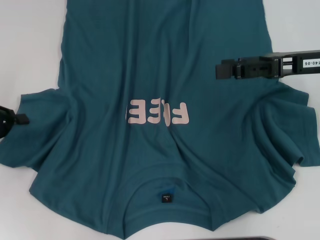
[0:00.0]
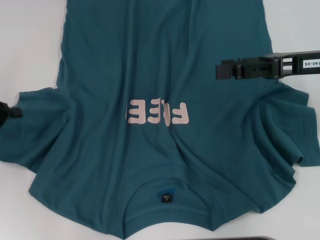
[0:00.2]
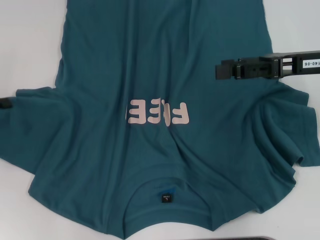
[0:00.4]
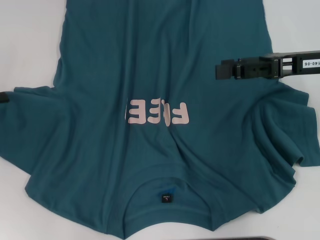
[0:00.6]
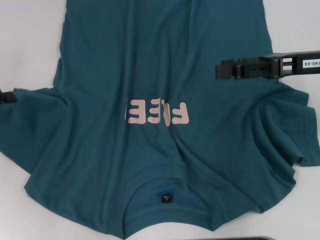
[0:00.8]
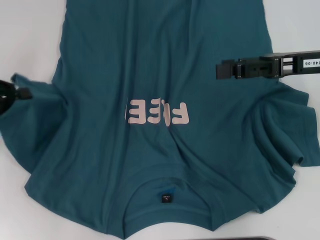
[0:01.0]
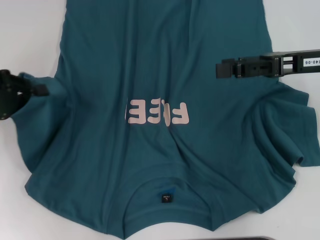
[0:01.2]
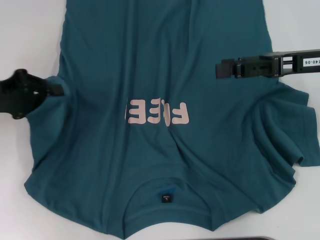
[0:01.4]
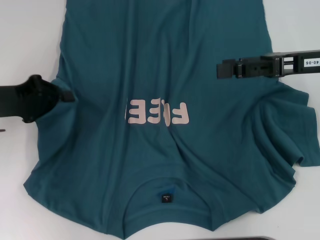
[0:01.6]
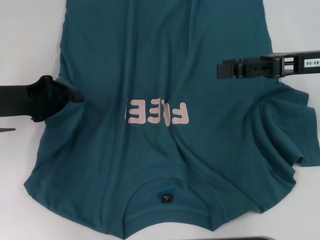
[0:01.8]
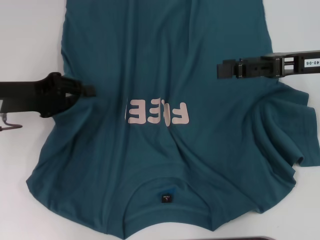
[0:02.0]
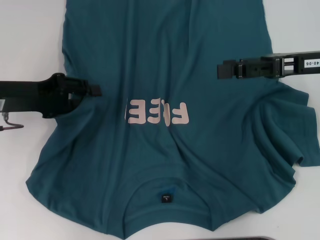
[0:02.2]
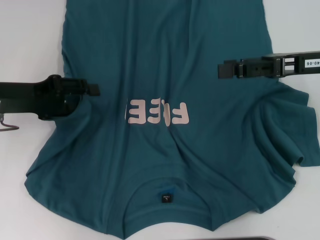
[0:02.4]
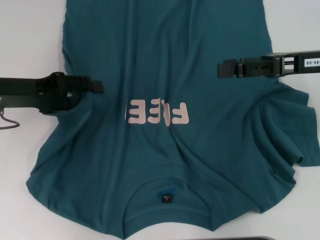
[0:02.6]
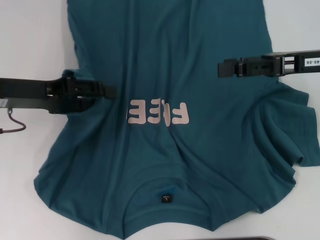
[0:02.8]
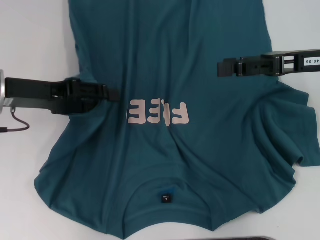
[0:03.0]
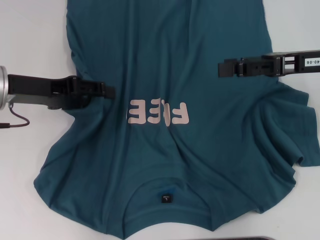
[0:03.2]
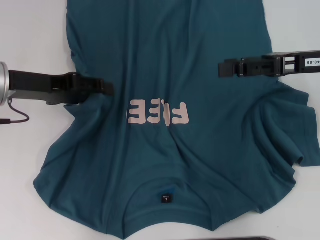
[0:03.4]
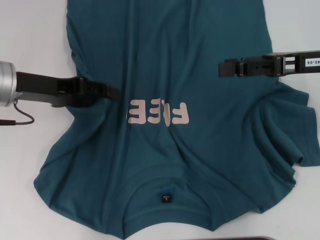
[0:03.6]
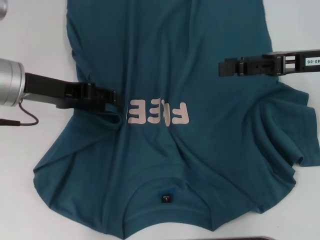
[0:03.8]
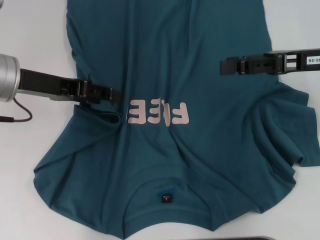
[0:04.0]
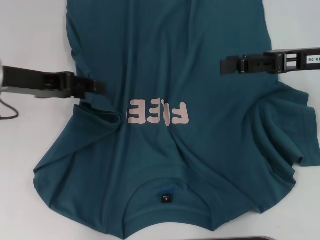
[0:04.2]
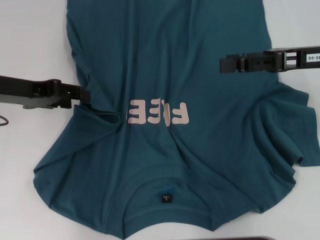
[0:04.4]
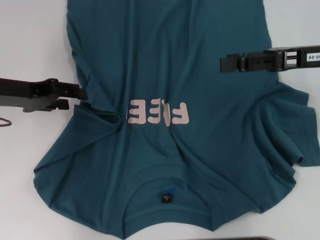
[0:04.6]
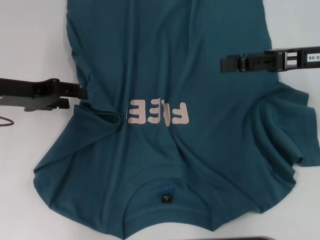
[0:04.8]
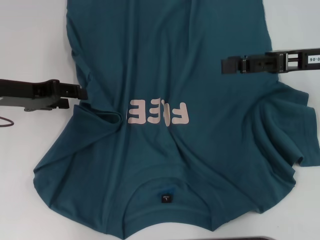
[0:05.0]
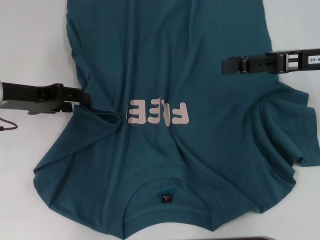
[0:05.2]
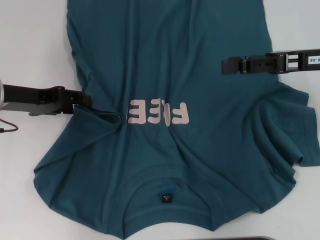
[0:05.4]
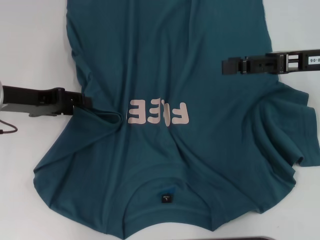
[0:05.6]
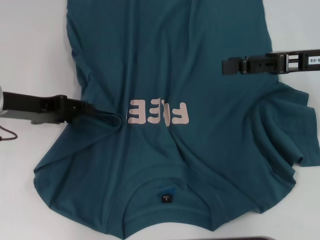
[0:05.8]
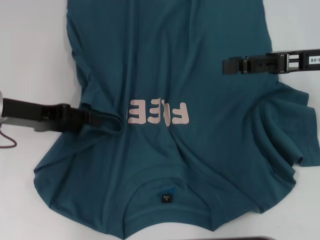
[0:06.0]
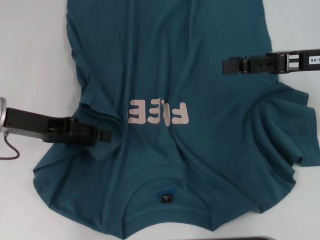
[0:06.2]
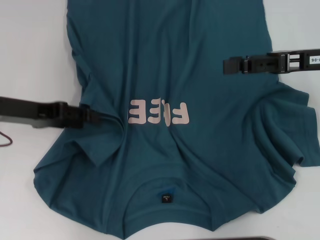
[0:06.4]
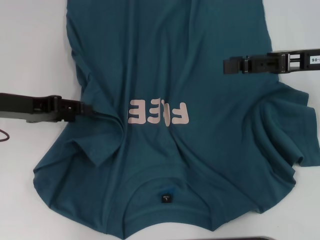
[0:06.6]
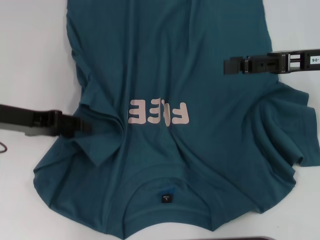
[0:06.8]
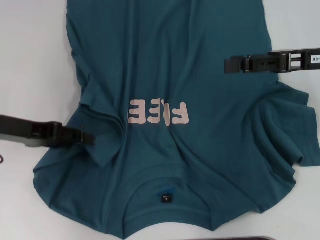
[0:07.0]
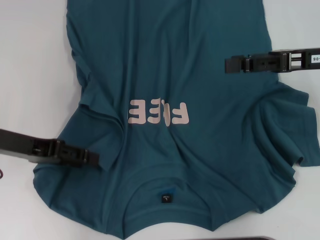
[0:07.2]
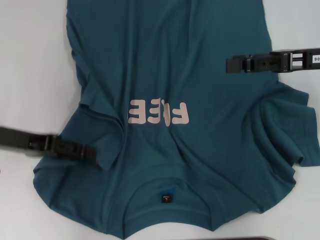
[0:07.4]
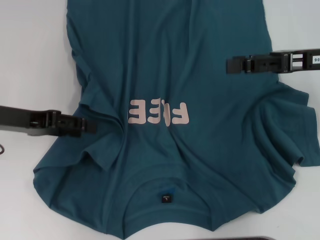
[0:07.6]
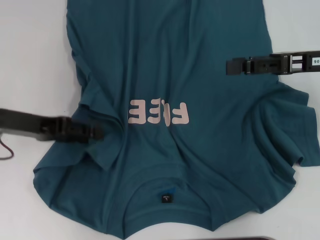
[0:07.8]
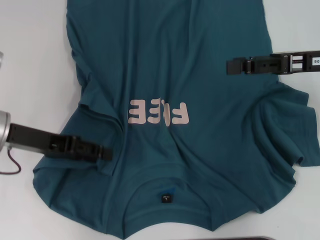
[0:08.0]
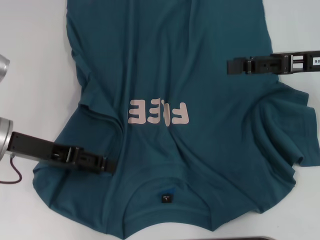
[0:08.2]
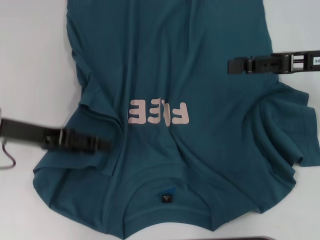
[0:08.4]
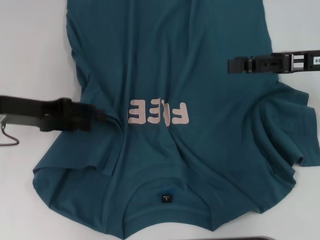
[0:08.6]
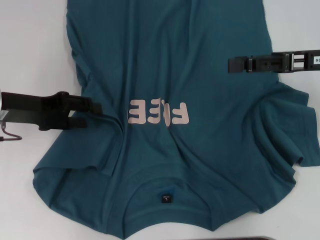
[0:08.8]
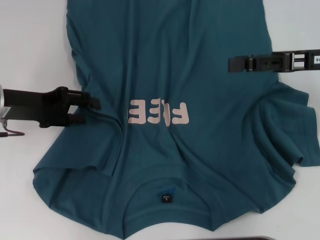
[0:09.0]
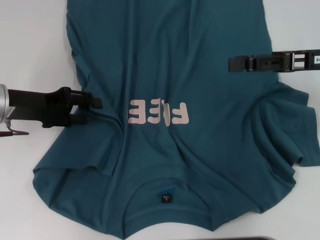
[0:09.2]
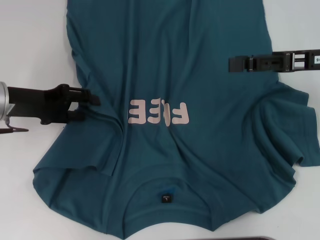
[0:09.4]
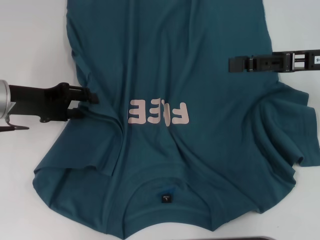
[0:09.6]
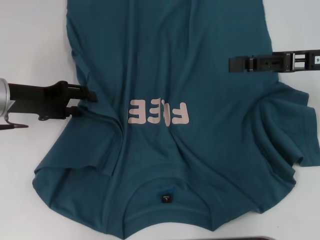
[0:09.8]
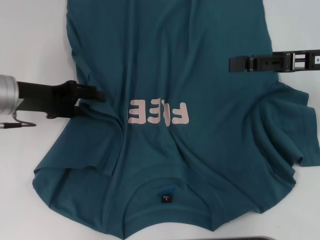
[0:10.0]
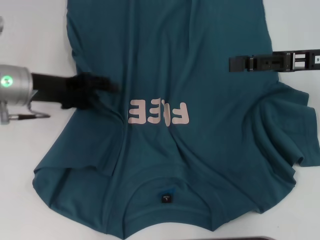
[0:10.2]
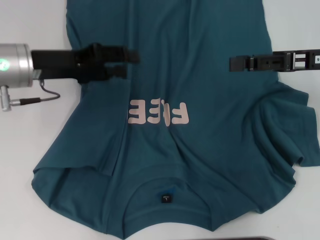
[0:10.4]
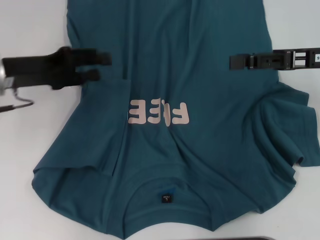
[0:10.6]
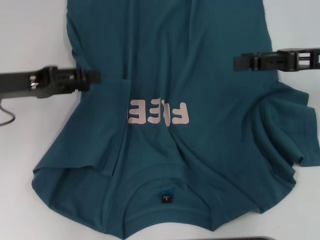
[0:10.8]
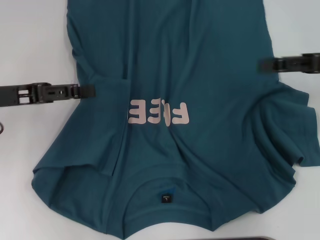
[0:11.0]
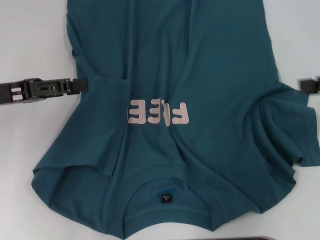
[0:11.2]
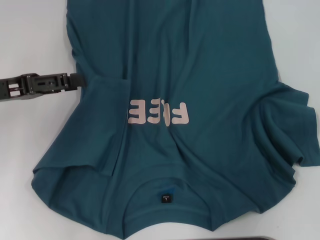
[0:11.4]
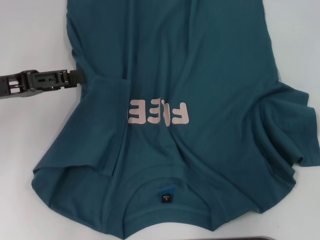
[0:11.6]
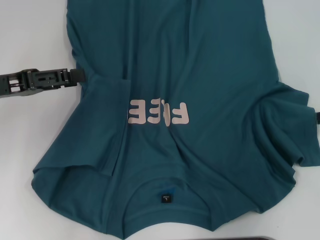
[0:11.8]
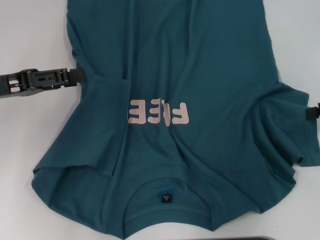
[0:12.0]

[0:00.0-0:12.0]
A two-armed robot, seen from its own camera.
Step, 0:00.0 to 0:10.6: Fold the bottom left sleeve with your left hand.
0:00.0 to 0:01.6: The left gripper shifts some 5 cm to the right.
0:01.6 to 0:03.0: The left gripper goes about 5 cm to the right, and opens.
0:03.0 to 0:07.6: The grippers make only small movements.
0:09.0 to 0:10.4: The left gripper shifts by approximately 5 cm.
0:10.4 to 0:12.0: The right gripper goes approximately 10 cm to the right, while the left gripper shifts roughly 10 cm to the left.

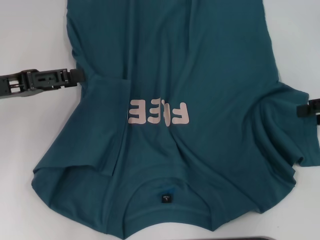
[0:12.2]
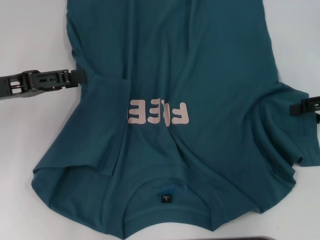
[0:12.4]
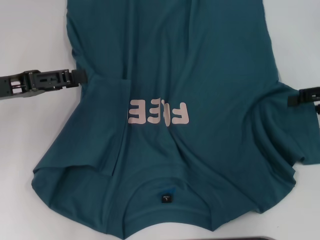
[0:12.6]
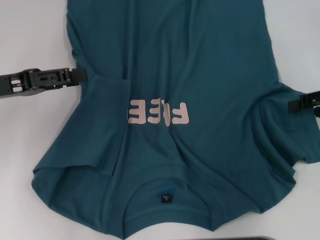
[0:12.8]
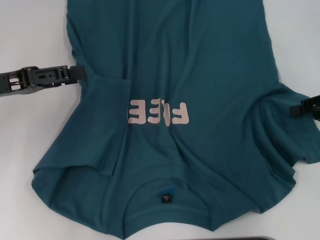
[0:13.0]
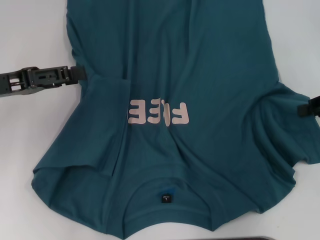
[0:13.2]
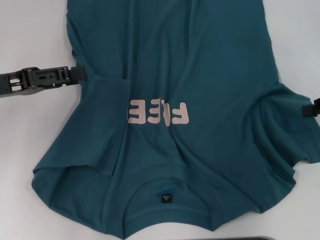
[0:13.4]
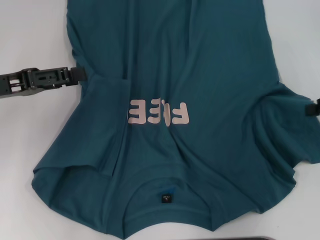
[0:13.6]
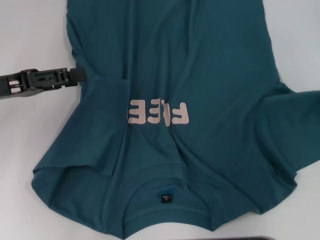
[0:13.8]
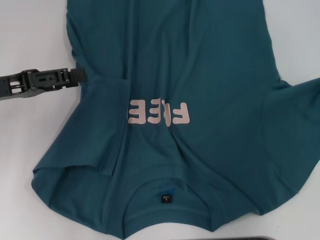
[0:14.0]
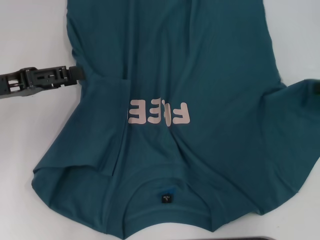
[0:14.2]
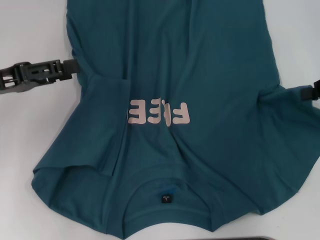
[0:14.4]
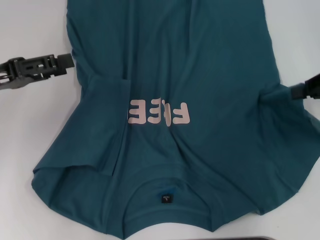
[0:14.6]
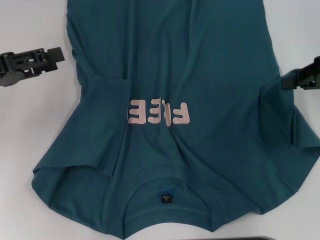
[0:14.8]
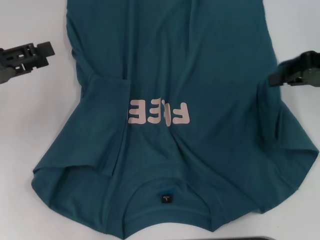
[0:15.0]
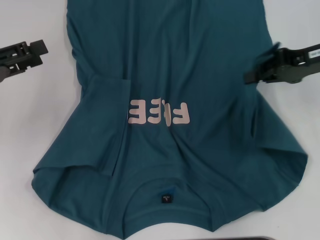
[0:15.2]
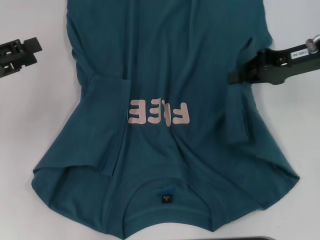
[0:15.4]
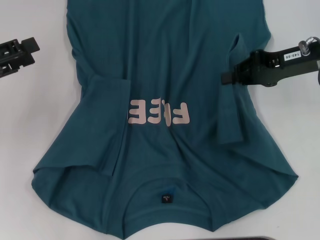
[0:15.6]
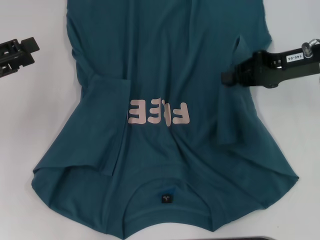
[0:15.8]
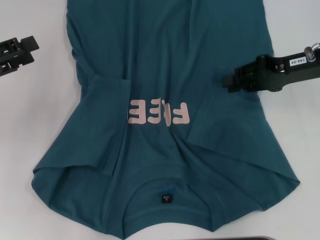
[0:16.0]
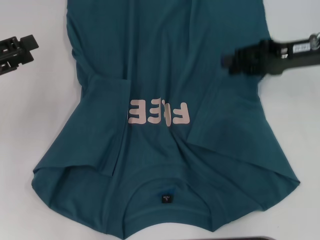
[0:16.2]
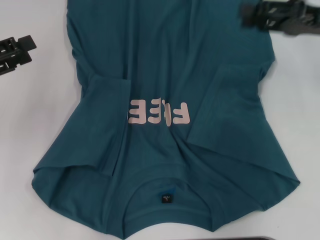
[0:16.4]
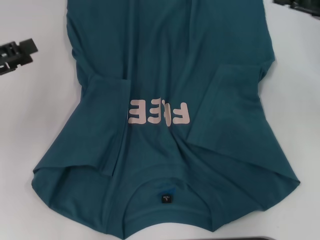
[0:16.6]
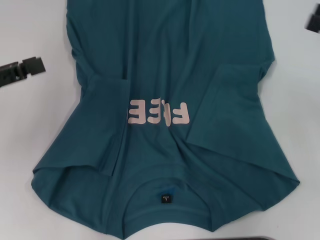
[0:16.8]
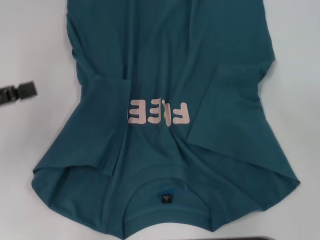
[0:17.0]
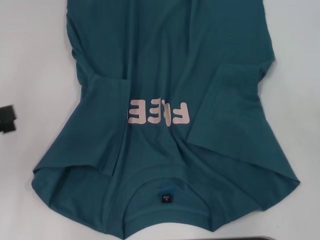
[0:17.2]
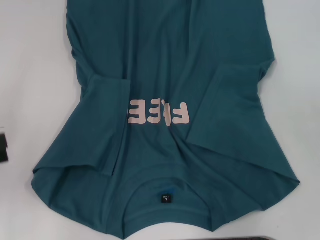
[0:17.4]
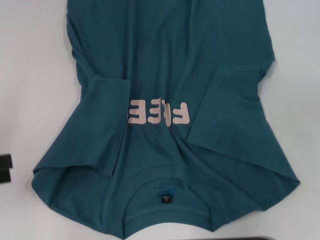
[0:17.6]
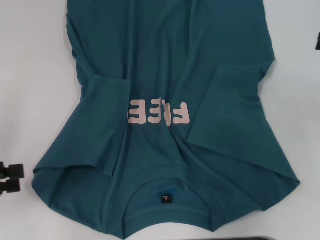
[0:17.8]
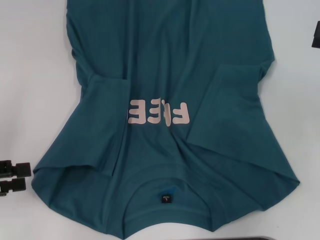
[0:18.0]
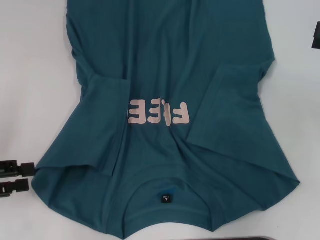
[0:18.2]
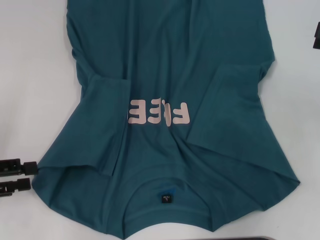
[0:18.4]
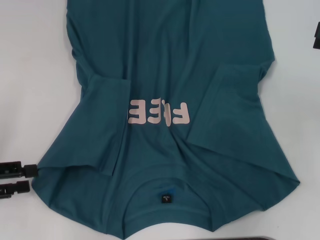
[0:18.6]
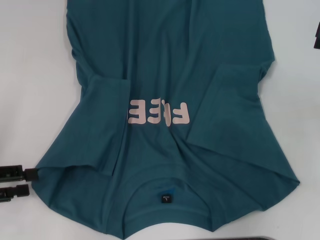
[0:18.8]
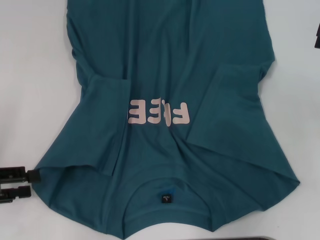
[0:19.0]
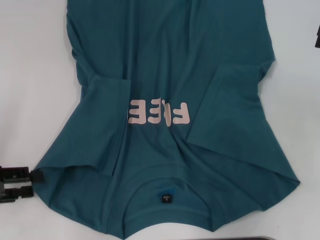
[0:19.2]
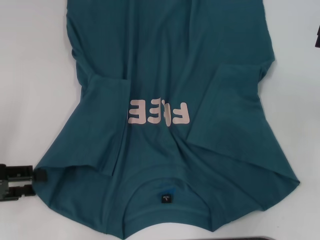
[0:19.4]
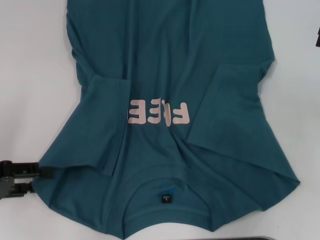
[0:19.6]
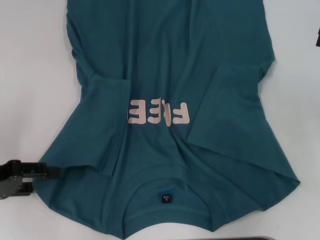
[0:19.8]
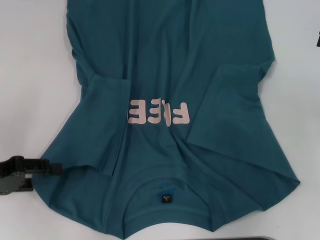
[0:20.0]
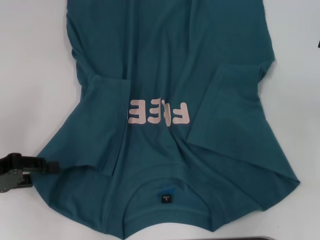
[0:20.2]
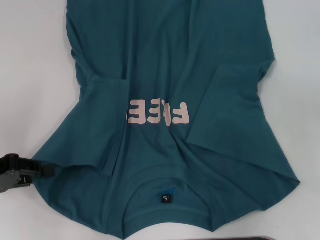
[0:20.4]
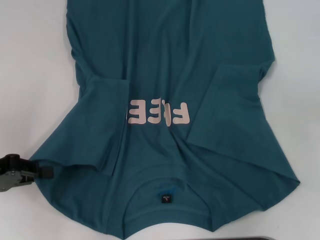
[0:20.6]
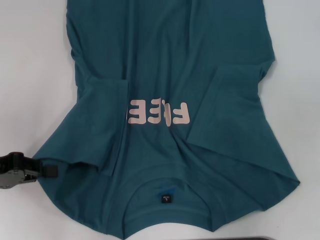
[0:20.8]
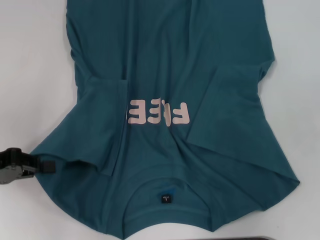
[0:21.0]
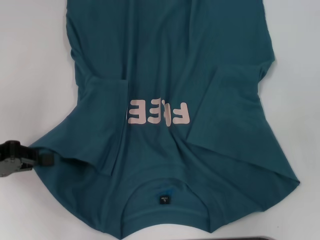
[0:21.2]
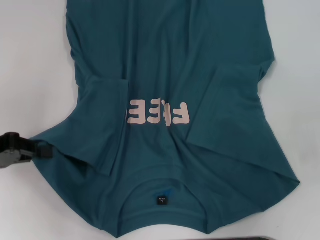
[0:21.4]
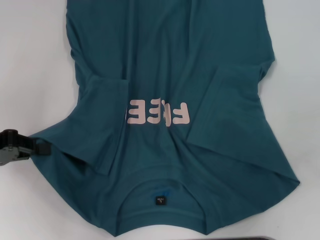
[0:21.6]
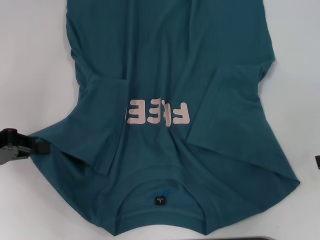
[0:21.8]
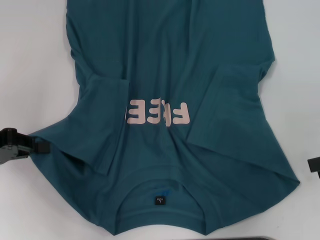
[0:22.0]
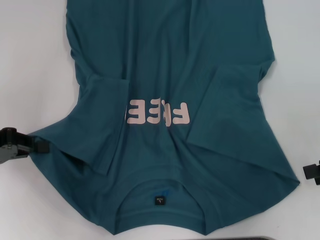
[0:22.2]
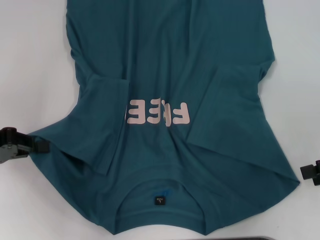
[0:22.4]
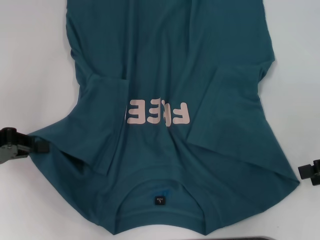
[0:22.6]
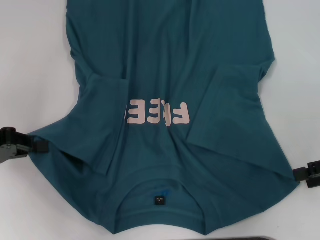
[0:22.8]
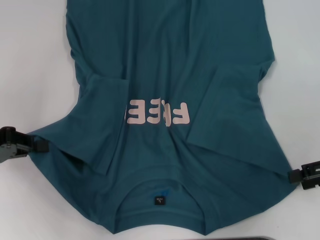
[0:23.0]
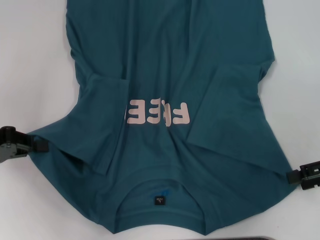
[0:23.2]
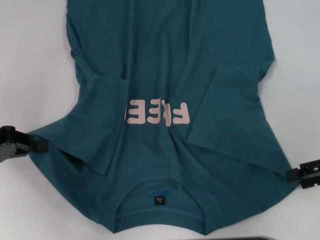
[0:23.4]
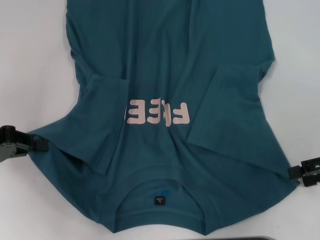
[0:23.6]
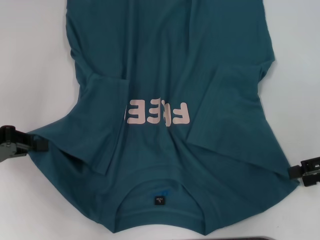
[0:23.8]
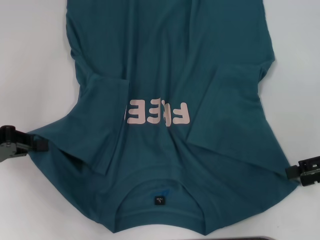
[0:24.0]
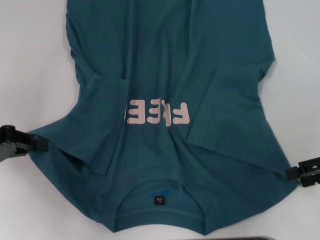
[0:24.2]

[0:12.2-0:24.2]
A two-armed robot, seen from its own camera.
Step, 0:12.2 to 0:16.2: Fold the bottom right sleeve to the right.
Step, 0:16.4 to 0:20.6: Grab the bottom left corner with your left hand.
0:12.2 to 0:13.8: The right gripper closes its fingers.
0:13.8 to 0:15.2: The right gripper is displaced to the left by some 10 cm.
0:15.2 to 0:16.6: The right gripper changes place by approximately 5 cm, and opens.
0:16.6 to 0:18.2: The left gripper travels backward by approximately 10 cm; the right gripper moves approximately 10 cm backward and comes back.
0:18.2 to 0:19.8: The grippers make only small movements.
0:19.8 to 0:21.2: The left gripper closes its fingers.
0:21.2 to 0:22.6: The right gripper changes place by approximately 5 cm.
0:22.6 to 0:24.2: There are only small adjustments of the grippers.
